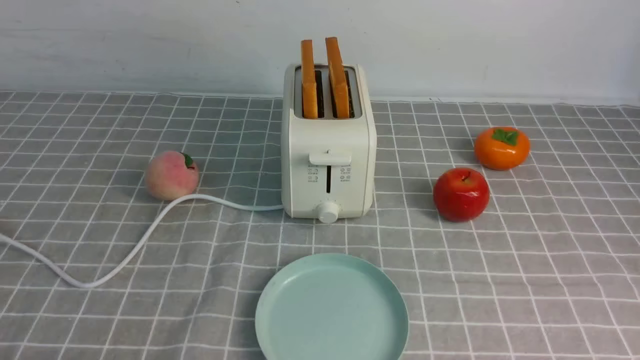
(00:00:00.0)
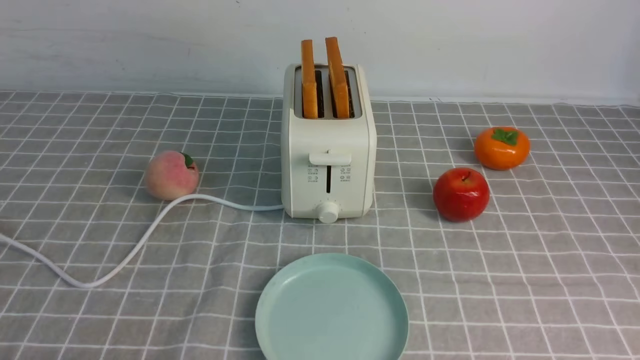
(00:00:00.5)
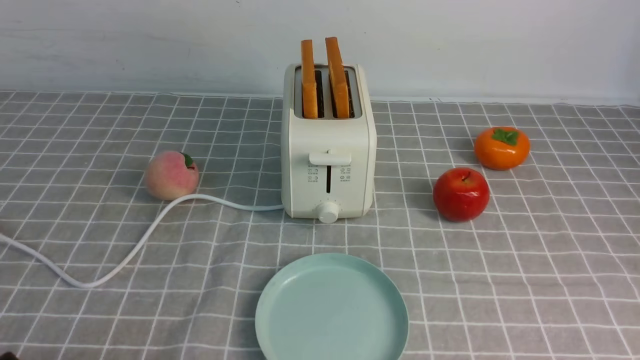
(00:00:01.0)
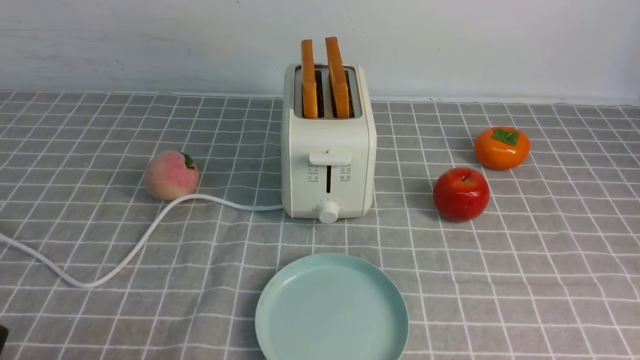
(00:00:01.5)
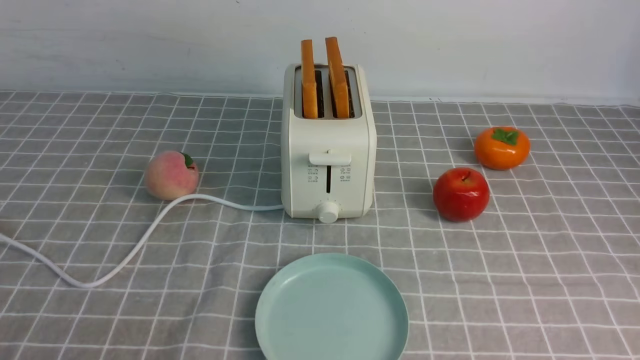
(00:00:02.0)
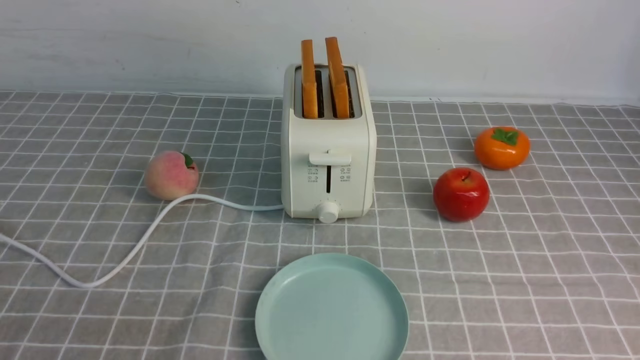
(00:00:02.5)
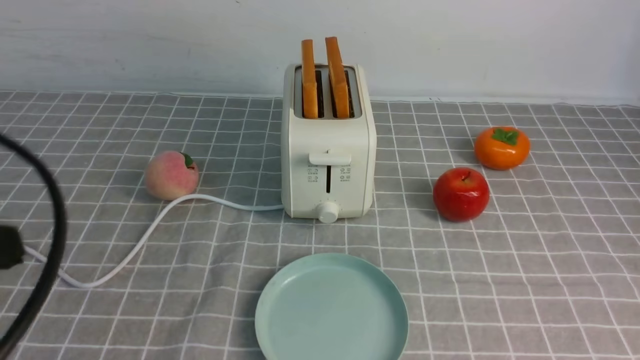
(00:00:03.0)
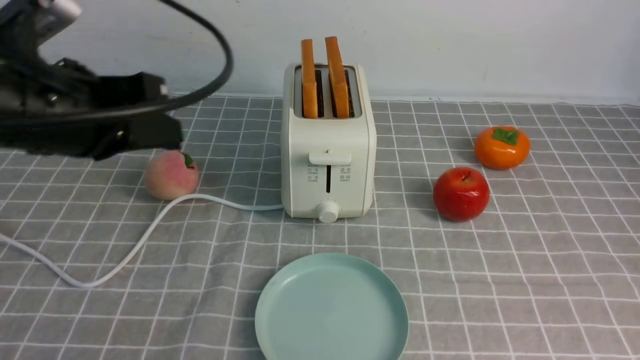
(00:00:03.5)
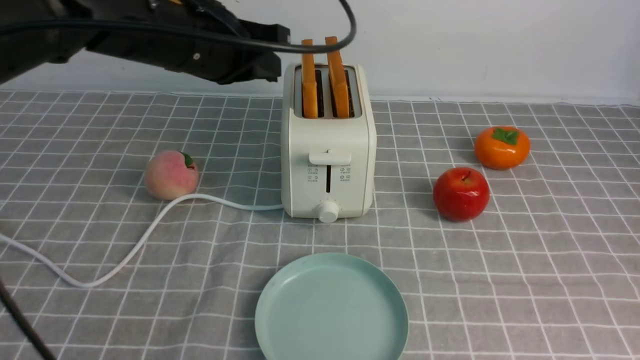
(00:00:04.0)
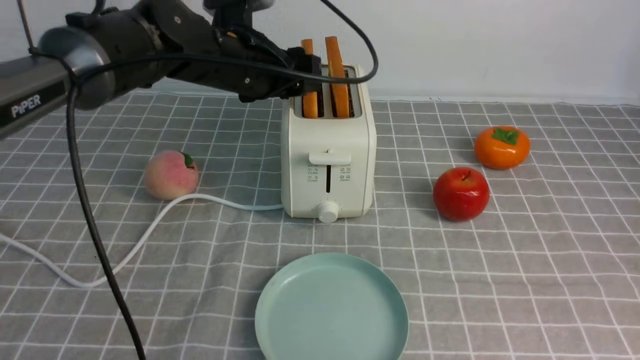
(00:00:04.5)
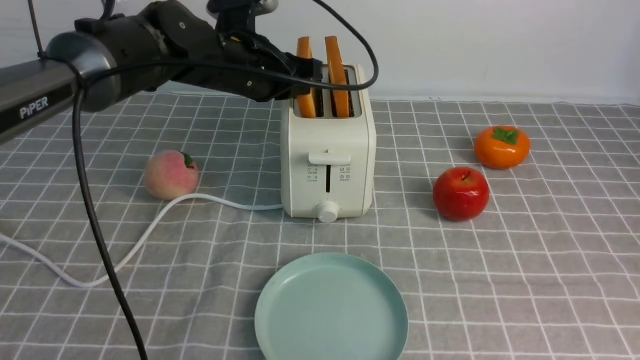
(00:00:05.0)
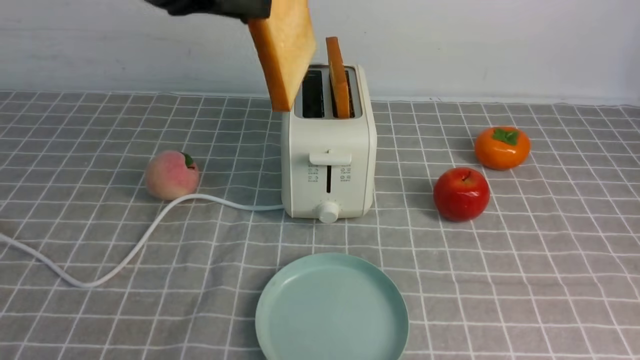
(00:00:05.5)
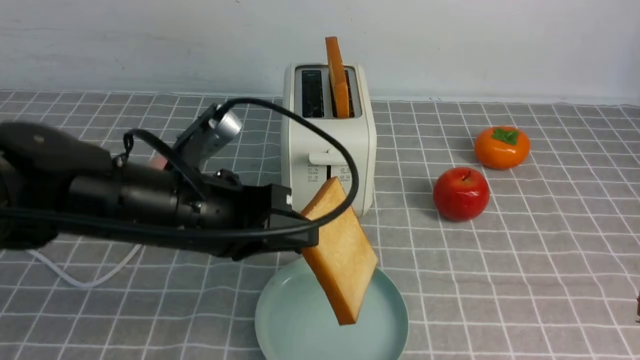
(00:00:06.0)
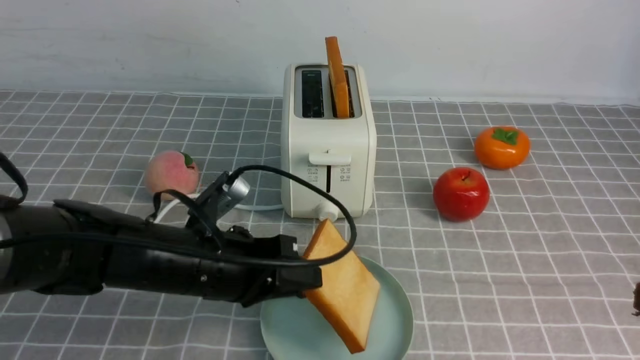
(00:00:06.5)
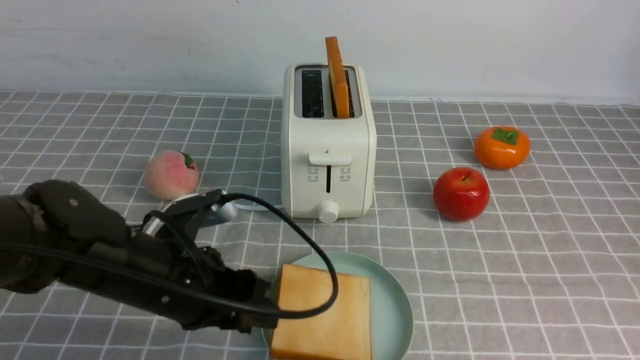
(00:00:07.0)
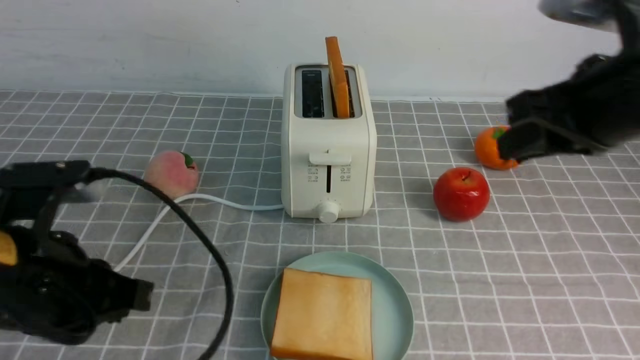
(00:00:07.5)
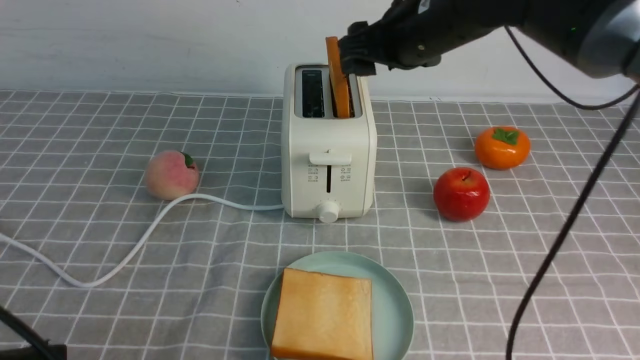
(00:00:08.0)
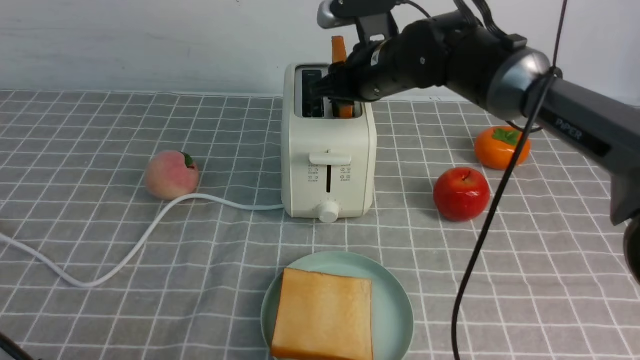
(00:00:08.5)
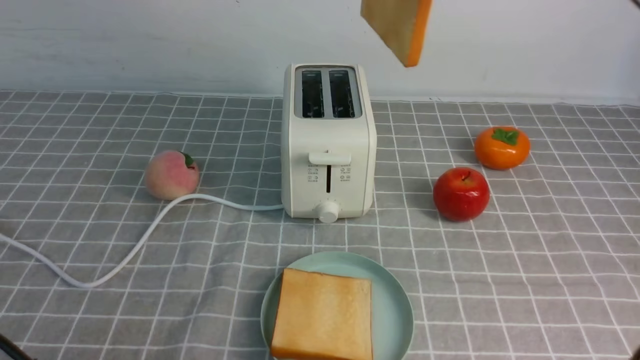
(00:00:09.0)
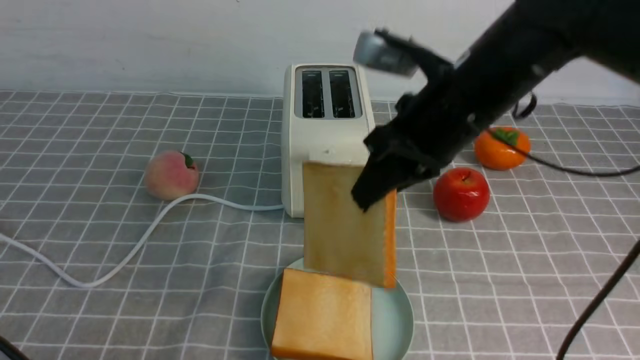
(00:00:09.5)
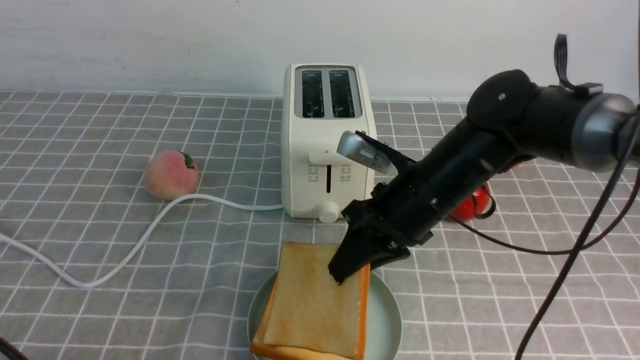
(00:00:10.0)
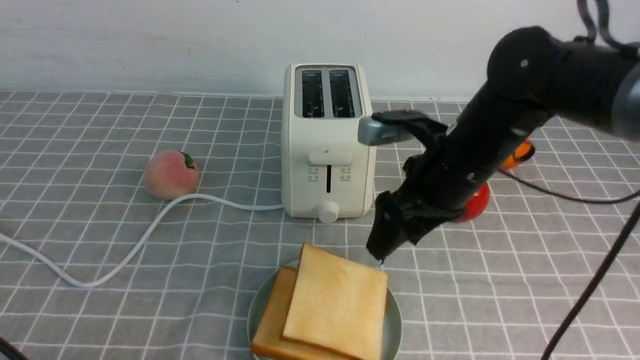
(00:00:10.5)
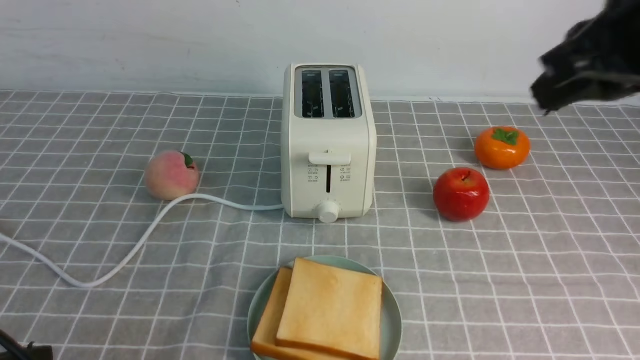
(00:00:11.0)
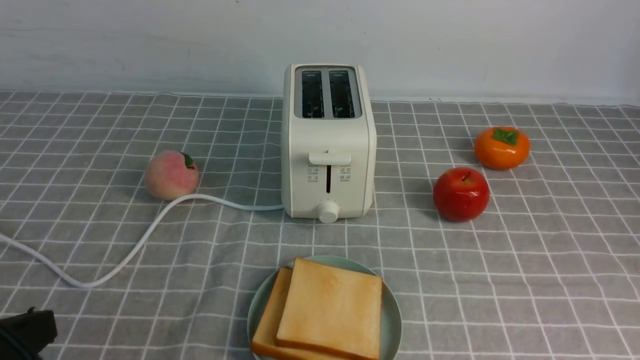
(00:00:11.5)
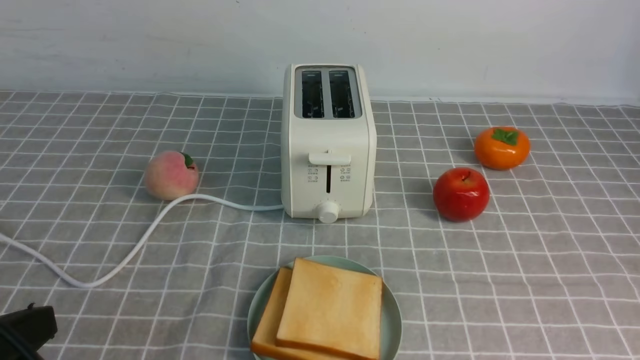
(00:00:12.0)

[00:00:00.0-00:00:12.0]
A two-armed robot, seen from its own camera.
Task of the whole recording: take toasted bread from bread machine on grey coffee table place on plate.
Step, 00:00:00.0 to 00:00:05.0: use the left arm to take out a slice of bread.
Step, 00:00:05.5 to 00:00:07.0: use the left arm to put a slice of bread into the empty plate.
Step, 00:00:07.5 to 00:00:08.5: use the right arm to take out a slice of bread.
Step, 00:00:09.0 to 00:00:10.5: use the right arm to put a slice of bread into the plate.
00:00:02.0 to 00:00:04.0: The left gripper goes approximately 35 cm forward and to the right, while the right gripper moves upward and forward, approximately 15 cm, and closes up.
00:00:04.0 to 00:00:06.0: The left gripper shifts approximately 15 cm backward and downward, and opens, then closes once more.
00:00:06.0 to 00:00:08.0: The right gripper travels forward and to the left by roughly 35 cm, and opens its fingers. Meanwhile the left gripper shifts about 20 cm backward and to the left, and opens, then closes once more.
00:00:08.0 to 00:00:10.0: The right gripper moves up and down over about 20 cm, changing direction 2 times, and closes.
00:00:10.0 to 00:00:12.0: The right gripper goes some 35 cm backward and to the right, and closes its fingers.

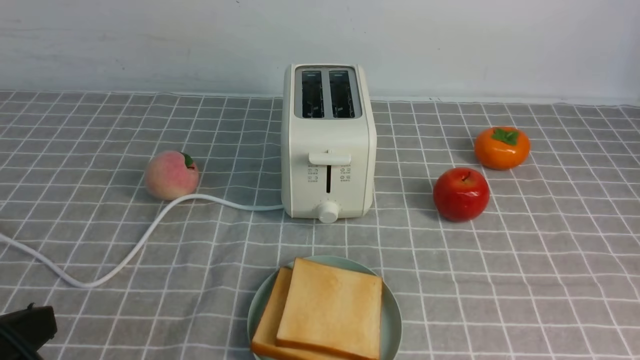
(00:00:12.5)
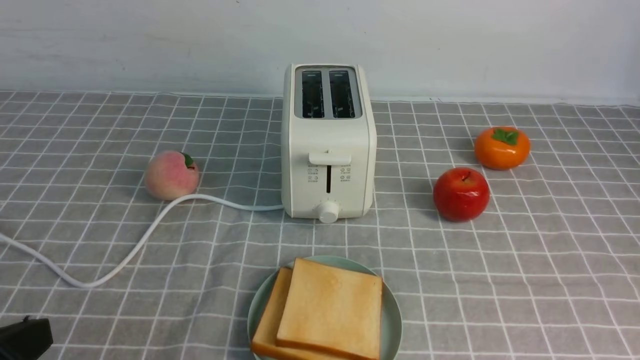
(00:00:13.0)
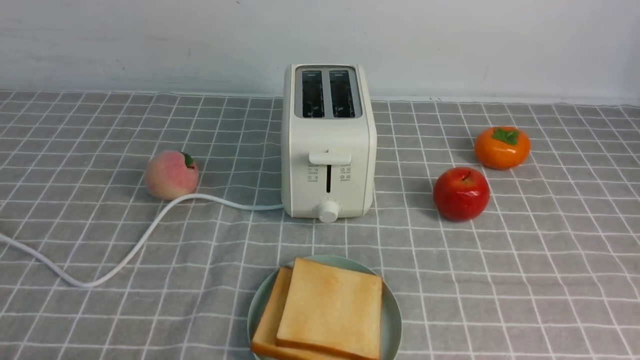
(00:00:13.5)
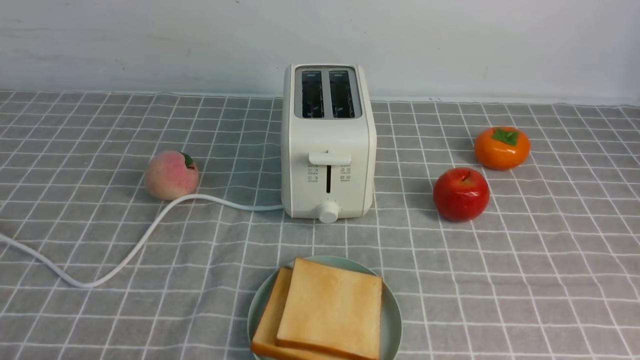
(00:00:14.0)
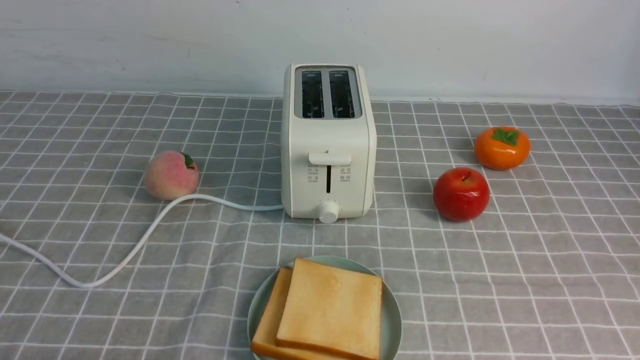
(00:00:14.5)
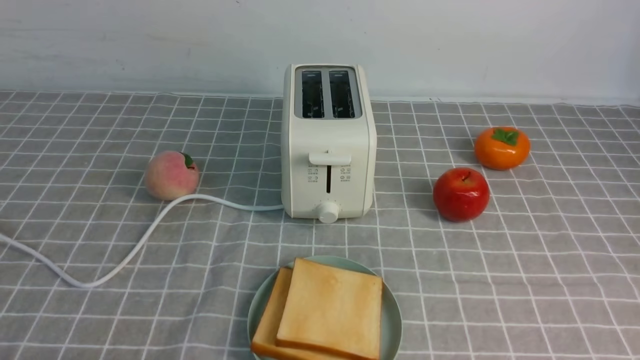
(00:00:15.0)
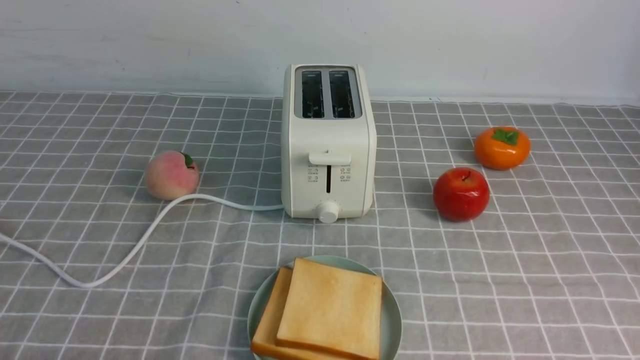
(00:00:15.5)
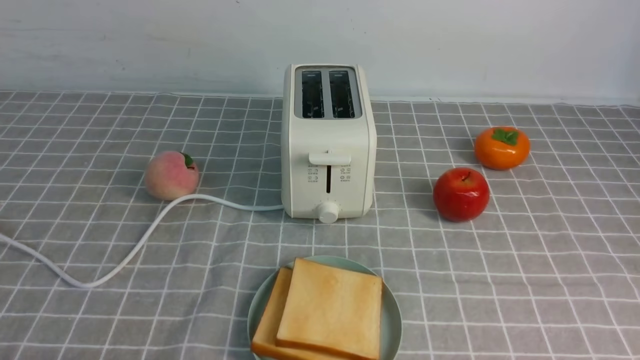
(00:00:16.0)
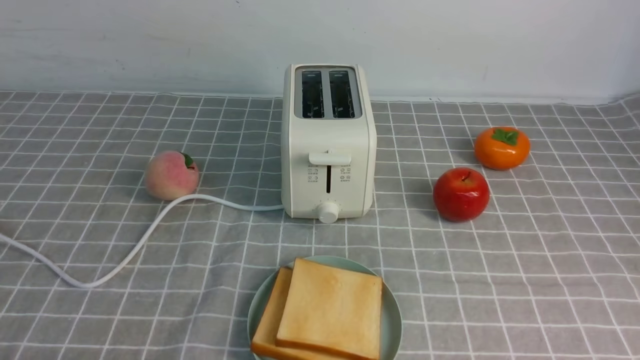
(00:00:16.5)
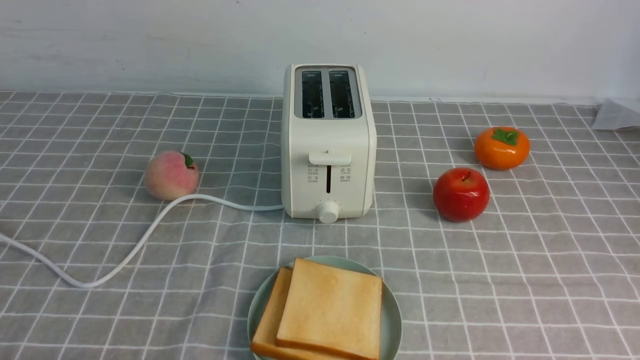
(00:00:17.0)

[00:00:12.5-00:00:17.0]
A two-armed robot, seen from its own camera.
Task of the whole recording: take toasted bread from bread machine on grey coffee table place on plate.
00:00:12.5 to 00:00:14.5: The left gripper is displaced downward by roughly 10 cm.
